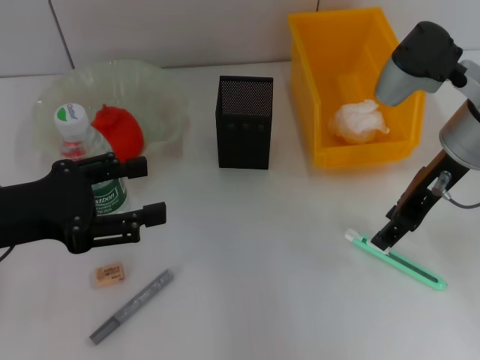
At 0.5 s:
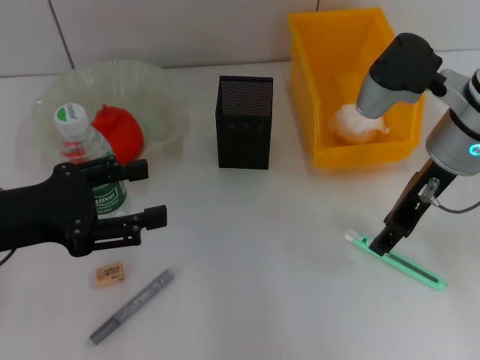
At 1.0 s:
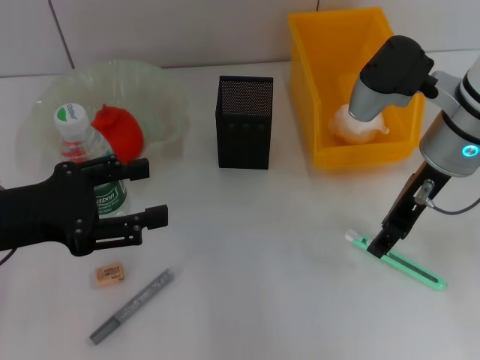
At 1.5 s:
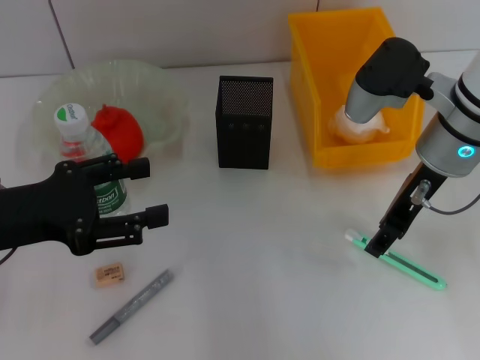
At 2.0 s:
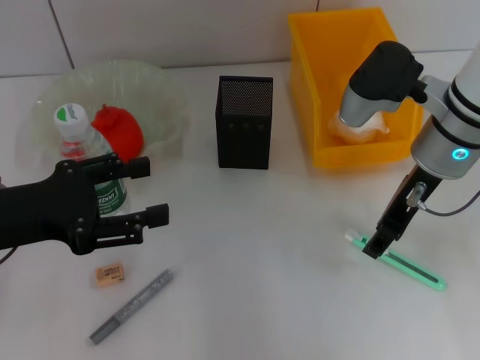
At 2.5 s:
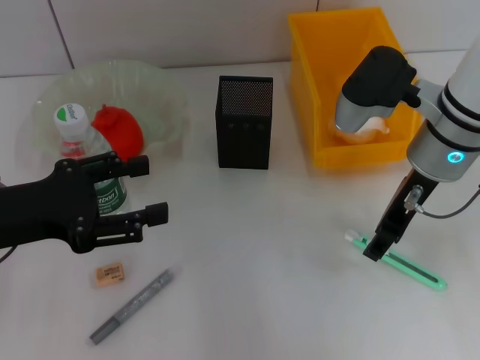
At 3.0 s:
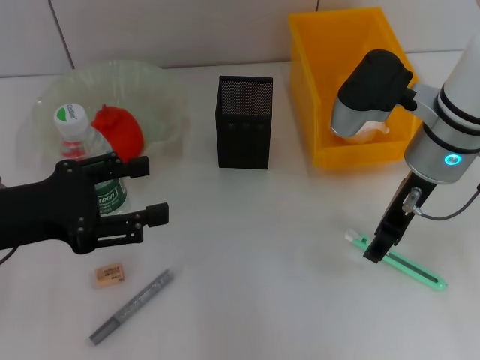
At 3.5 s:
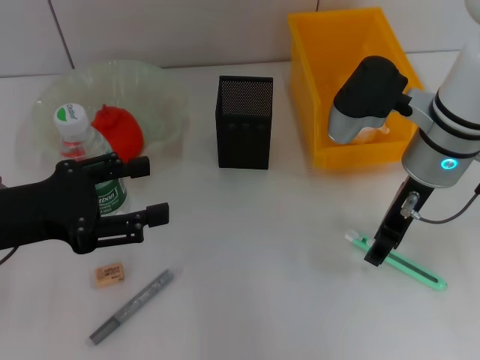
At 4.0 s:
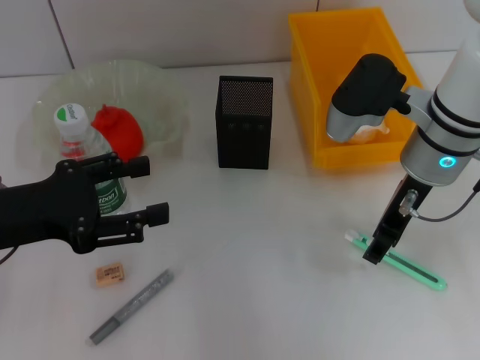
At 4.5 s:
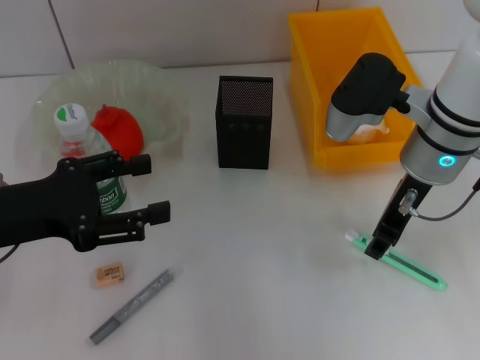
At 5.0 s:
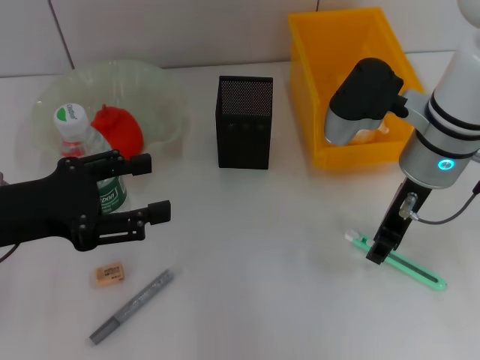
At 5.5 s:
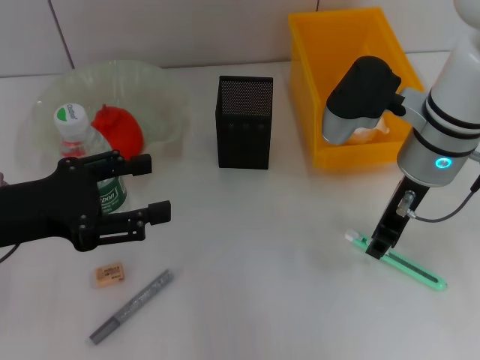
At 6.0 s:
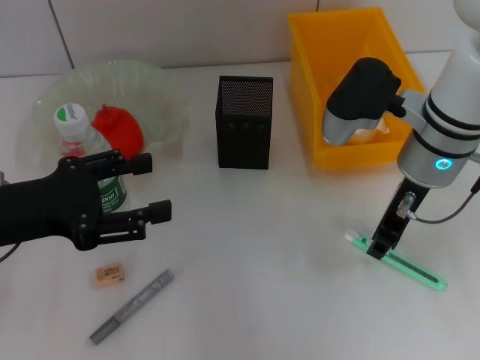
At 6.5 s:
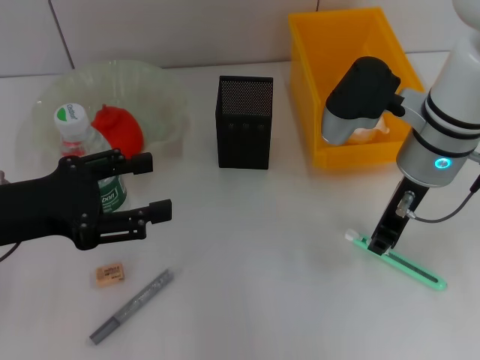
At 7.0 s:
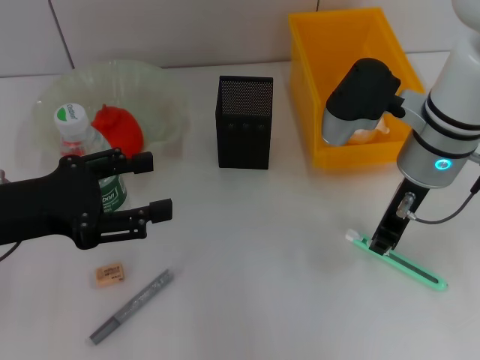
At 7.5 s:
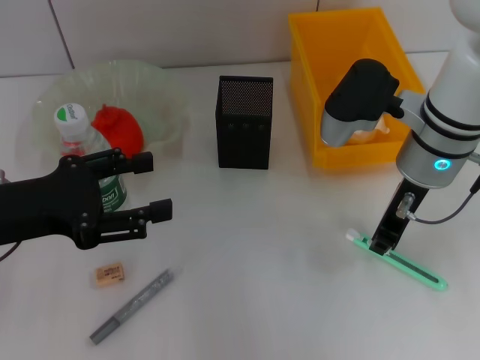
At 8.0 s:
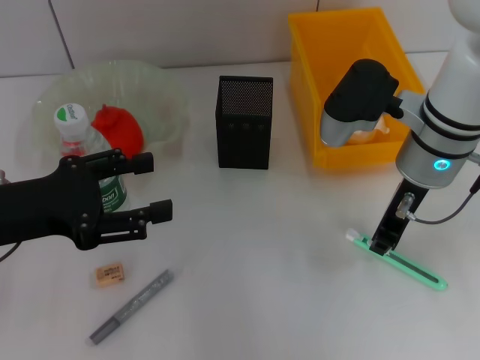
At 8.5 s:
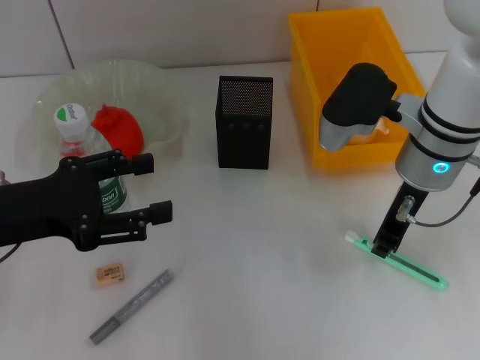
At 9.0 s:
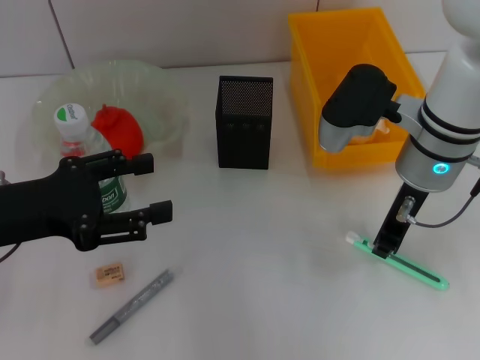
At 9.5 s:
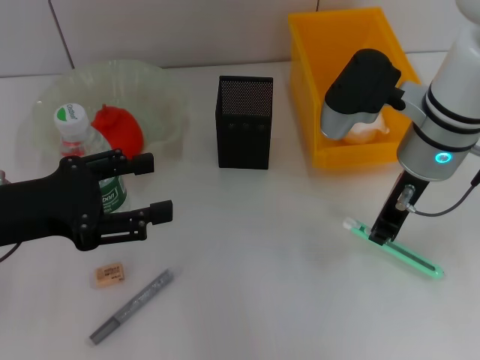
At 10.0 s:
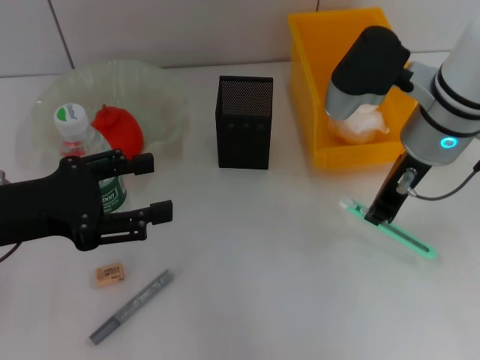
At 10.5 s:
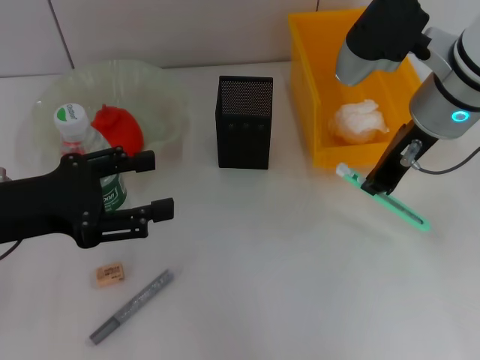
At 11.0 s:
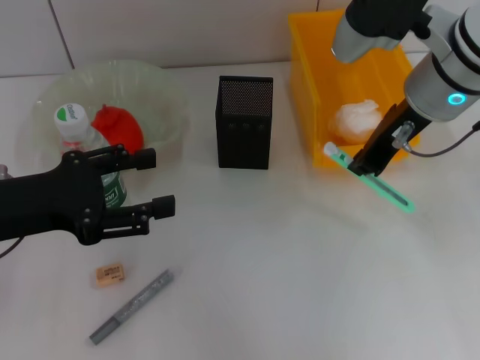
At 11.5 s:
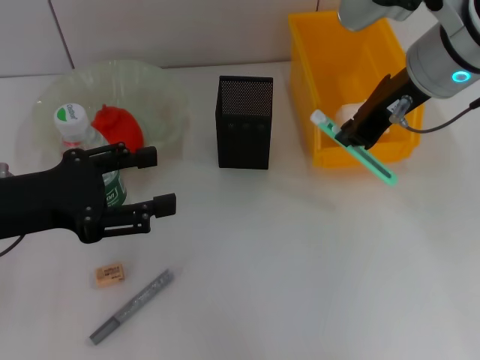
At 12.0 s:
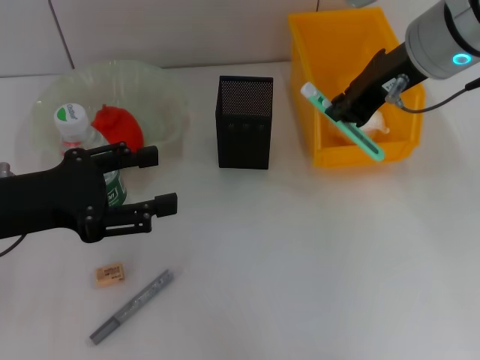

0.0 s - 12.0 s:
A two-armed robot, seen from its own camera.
Step, 0.0 s - 8.5 s: Grab the blue utility knife with the right hand.
0.0 s - 2.0 s: There are only small adjustments of the grippers.
2.0 s - 4.0 s: Neither gripper changes place.
4.0 s - 6.0 s: The right gripper closes up.
6.0 s - 8.0 s: Both grippers stay about where they are.
8.0 s - 10.0 s: The grippers move only a little.
10.0 s - 12.0 s: The right gripper shifts about 10 cm upward.

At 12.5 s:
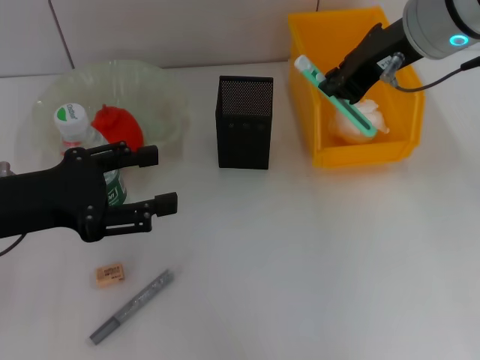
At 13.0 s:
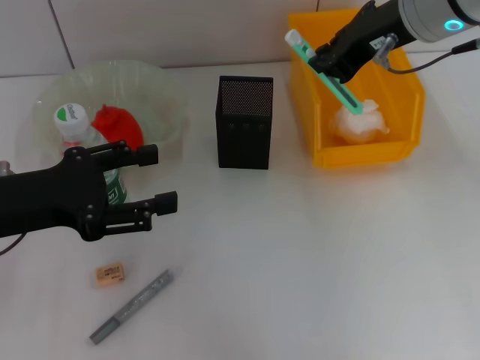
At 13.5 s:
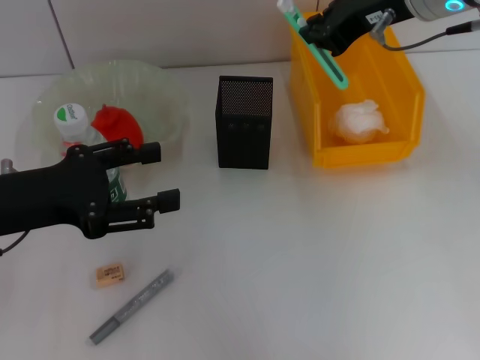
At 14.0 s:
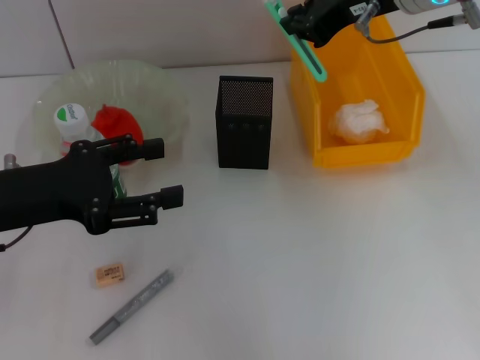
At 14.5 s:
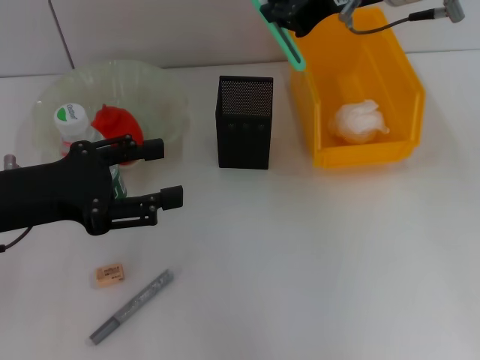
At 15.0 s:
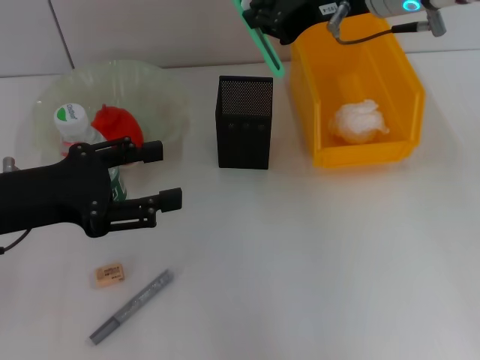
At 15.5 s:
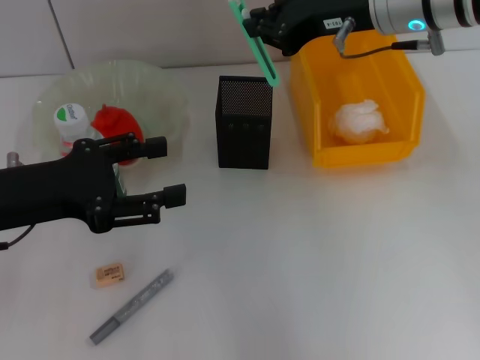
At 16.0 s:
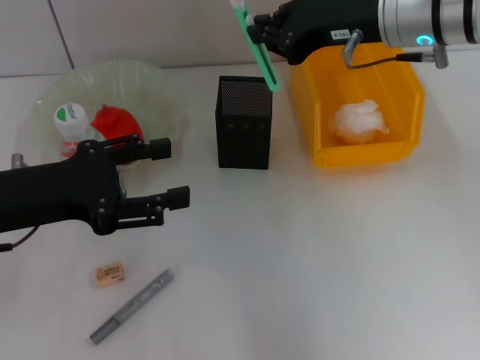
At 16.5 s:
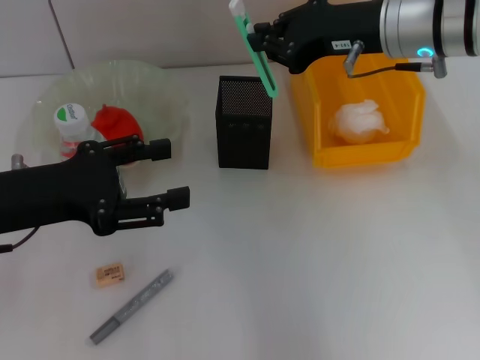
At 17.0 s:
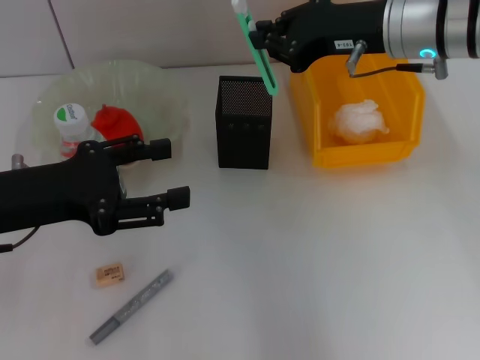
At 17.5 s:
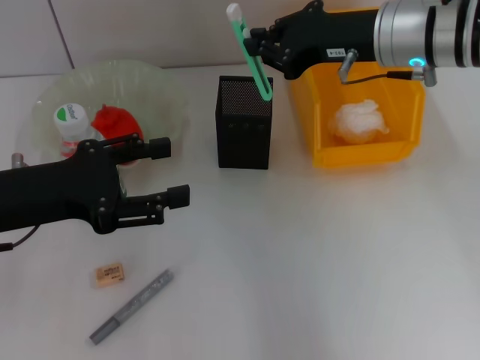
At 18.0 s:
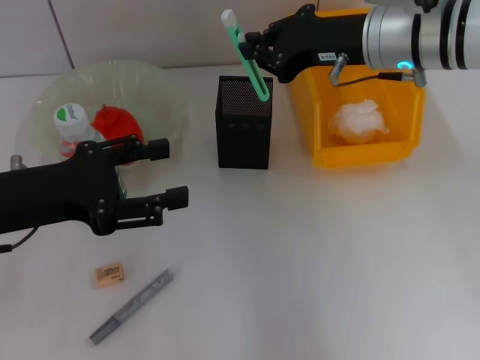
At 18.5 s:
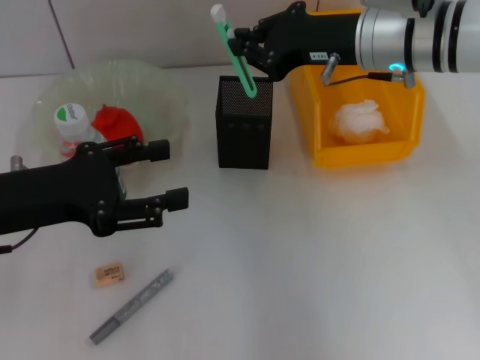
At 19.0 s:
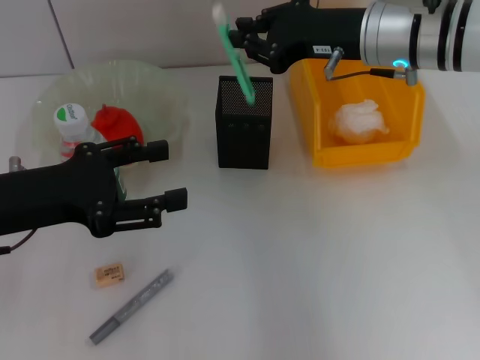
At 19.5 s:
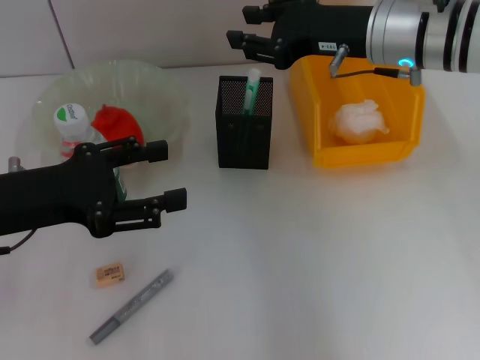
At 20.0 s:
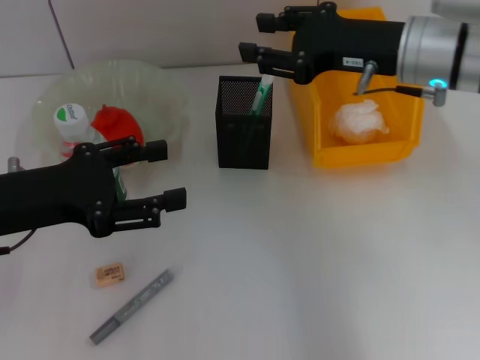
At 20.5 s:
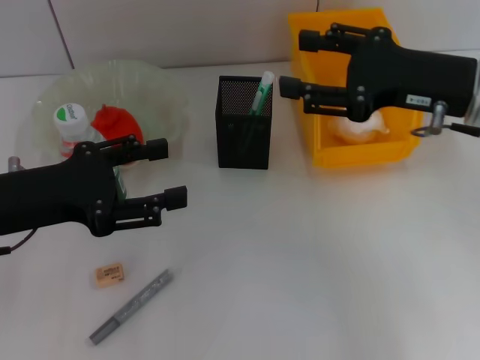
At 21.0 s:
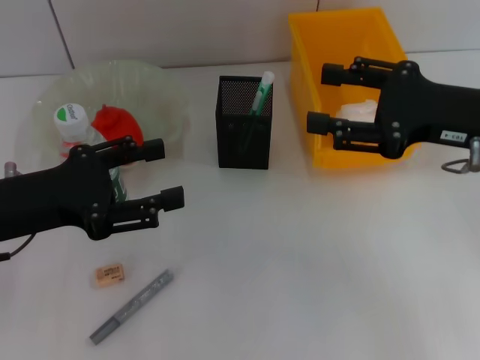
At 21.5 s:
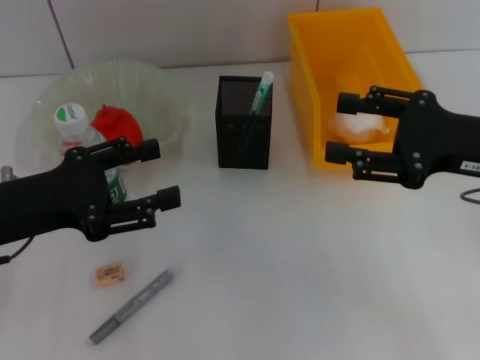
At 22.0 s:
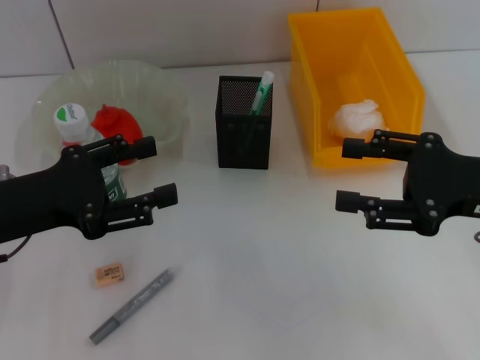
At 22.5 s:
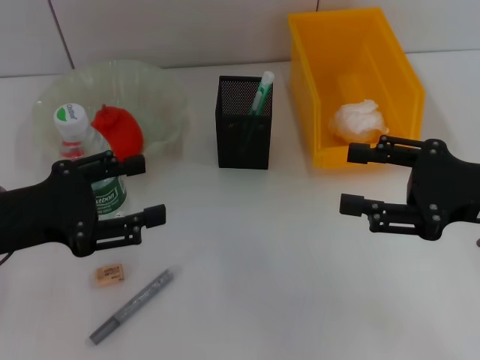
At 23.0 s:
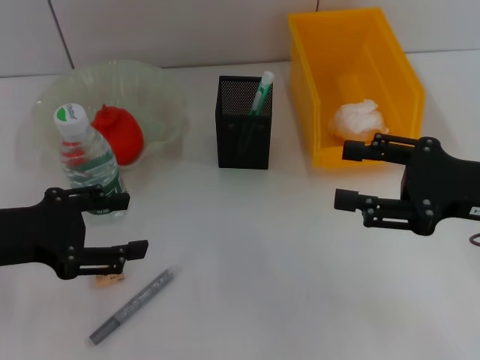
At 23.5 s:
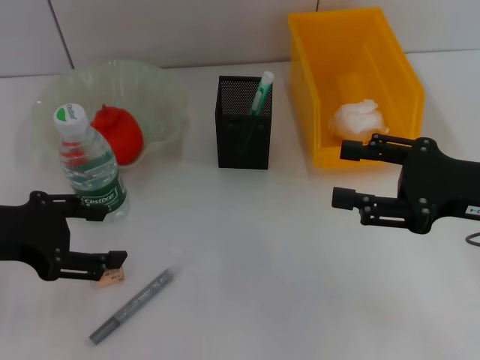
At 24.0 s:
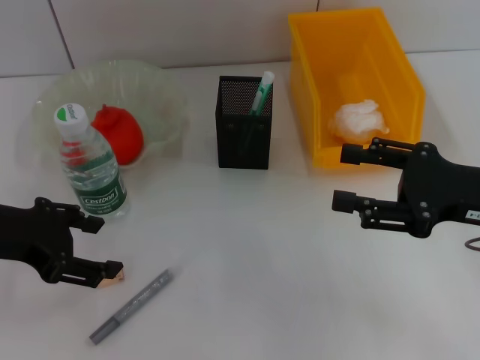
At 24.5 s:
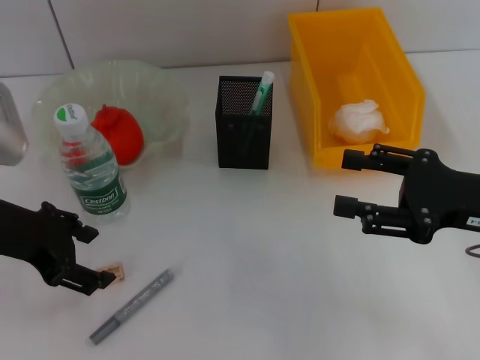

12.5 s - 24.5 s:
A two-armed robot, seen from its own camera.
Step, 12.5 s - 19.5 s: Place the blue utility knife into the pen holder with the right hand.
14.5 s - 16.5 s: The right gripper moves downward, about 5 cm.
16.5 s - 18.5 s: The grippers move only a little.
18.5 s - 20.5 s: The right gripper shifts about 10 cm backward and to the right, and opens.
20.5 s - 22.5 s: The right gripper shifts some 5 cm backward.
22.5 s - 24.5 s: The left gripper moves approximately 5 cm.

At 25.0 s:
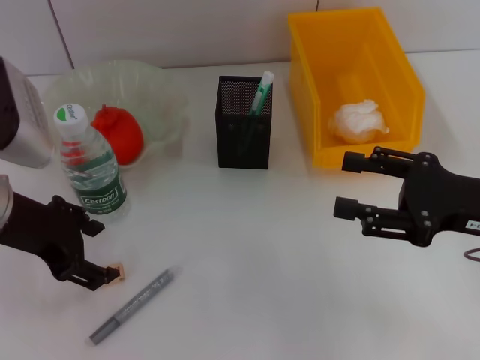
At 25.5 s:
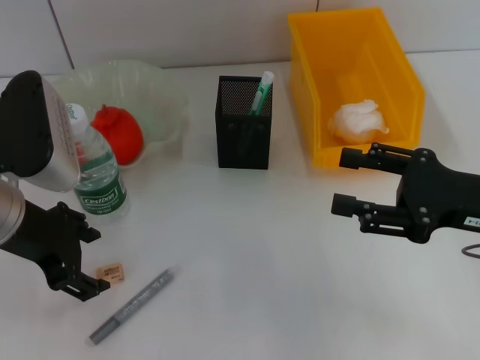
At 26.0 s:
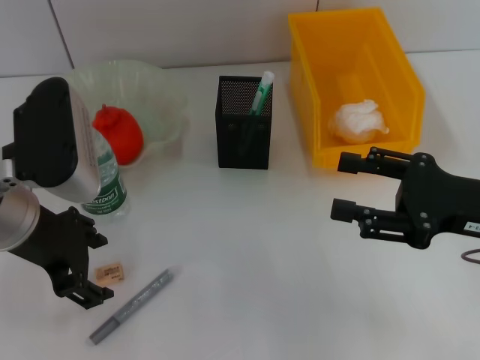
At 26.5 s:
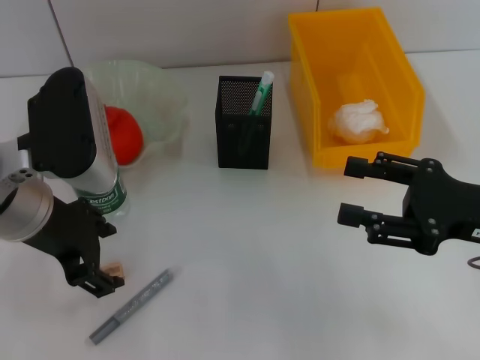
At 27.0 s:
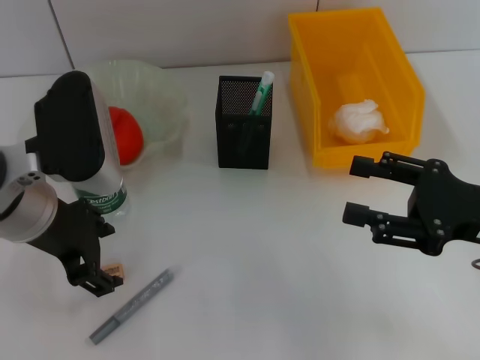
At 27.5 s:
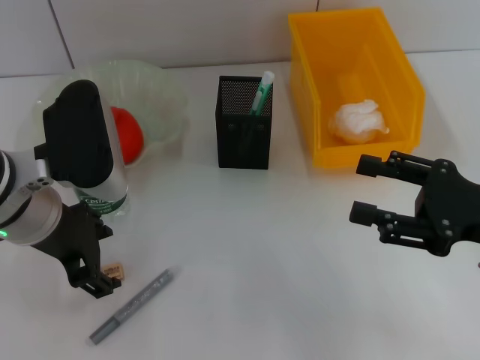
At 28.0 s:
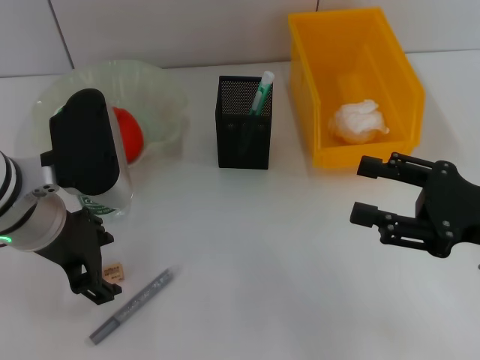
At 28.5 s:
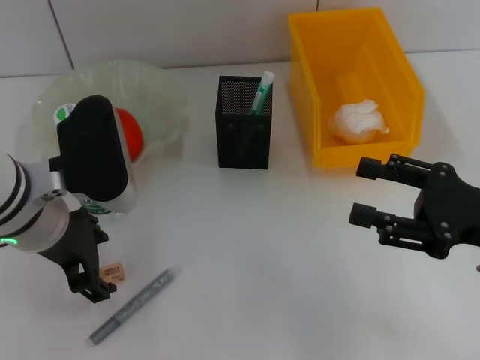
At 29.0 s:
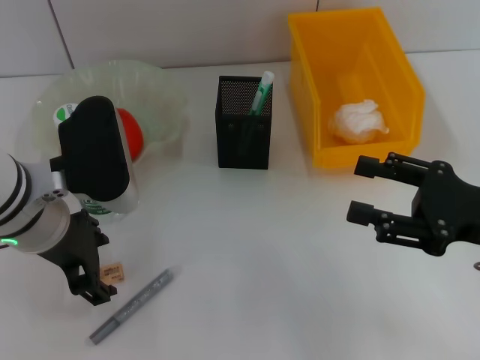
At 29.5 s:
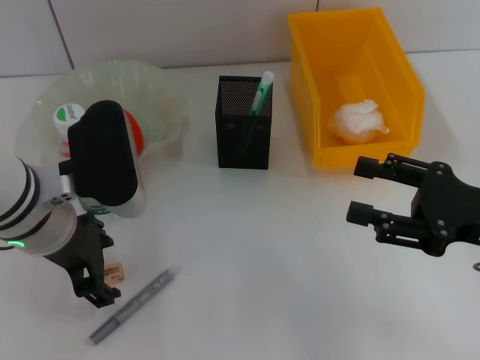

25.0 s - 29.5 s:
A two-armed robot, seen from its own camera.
25.0 s - 27.0 s: The grippers make only small movements.
27.0 s - 29.5 s: The grippers make only small movements.
